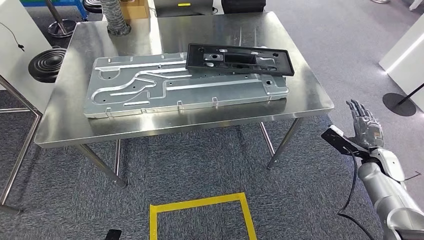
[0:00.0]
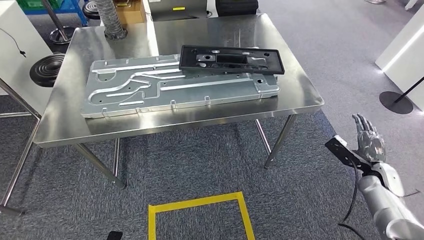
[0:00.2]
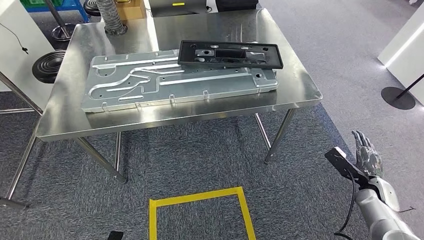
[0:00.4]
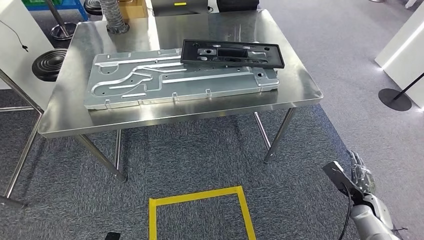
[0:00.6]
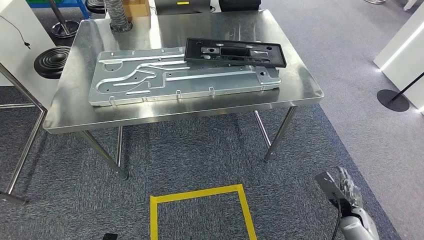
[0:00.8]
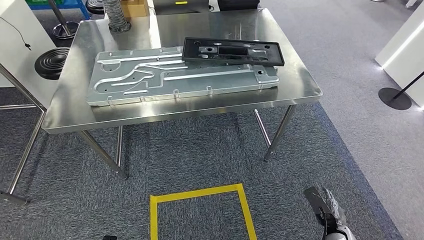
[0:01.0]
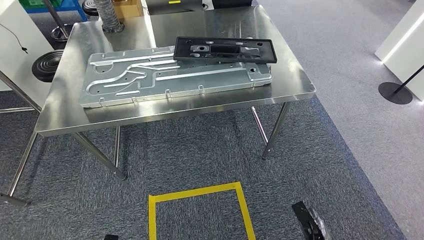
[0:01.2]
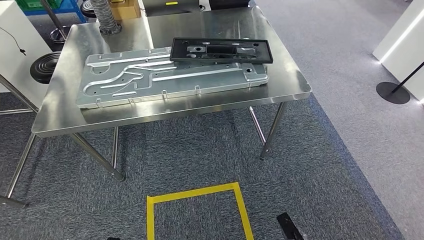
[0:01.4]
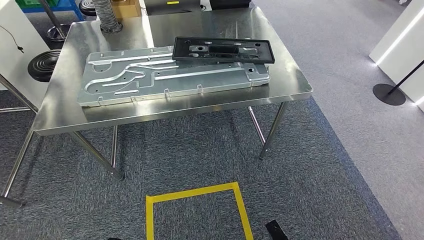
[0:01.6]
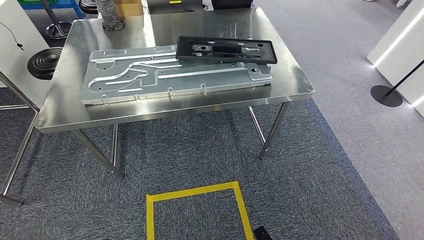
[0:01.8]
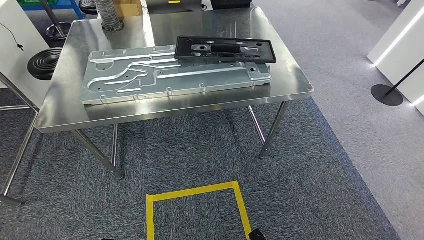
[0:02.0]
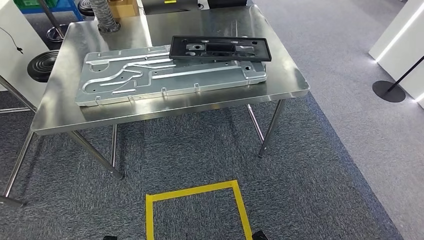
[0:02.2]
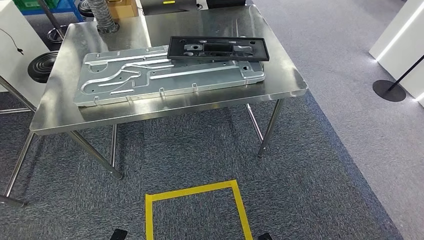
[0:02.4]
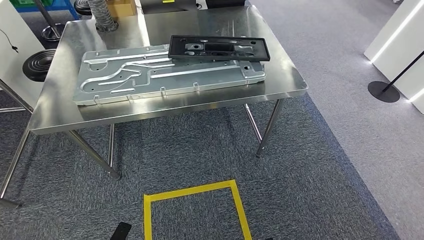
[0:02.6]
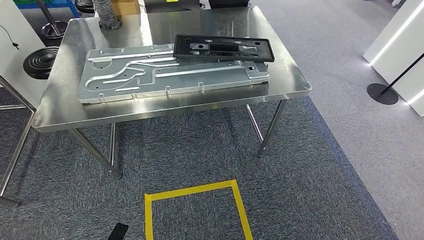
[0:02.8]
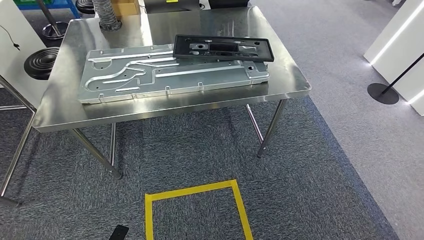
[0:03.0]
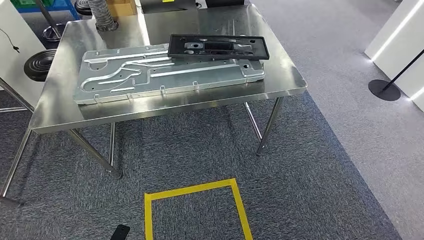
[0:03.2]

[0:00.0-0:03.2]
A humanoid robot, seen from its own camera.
Step, 0:00.0 to 0:03.0: Move to the initial position of the shelf.
0:01.6 to 0:03.2: The right hand shifts some 10 cm to the left and backward.
